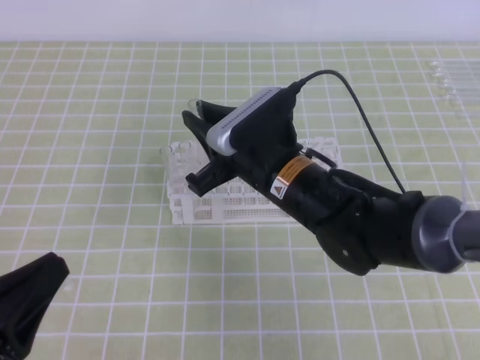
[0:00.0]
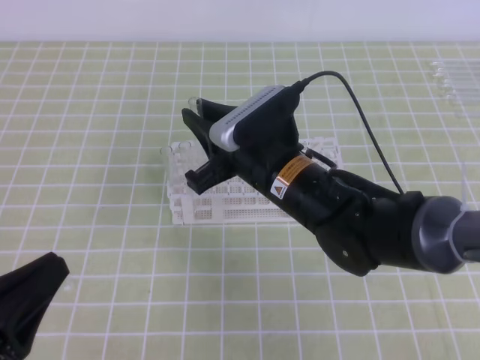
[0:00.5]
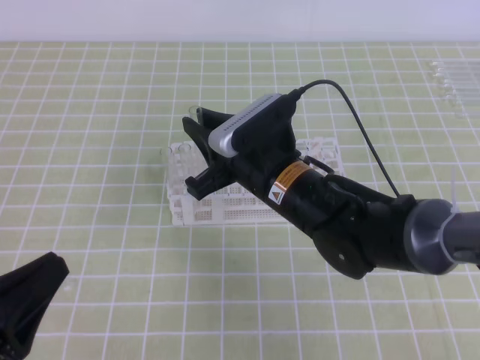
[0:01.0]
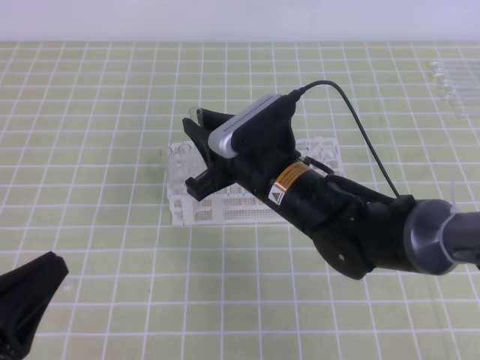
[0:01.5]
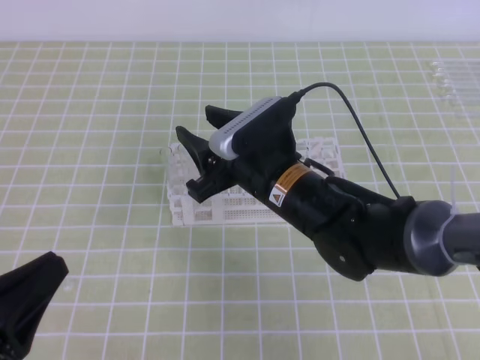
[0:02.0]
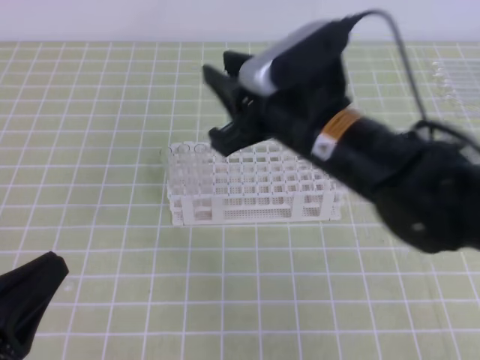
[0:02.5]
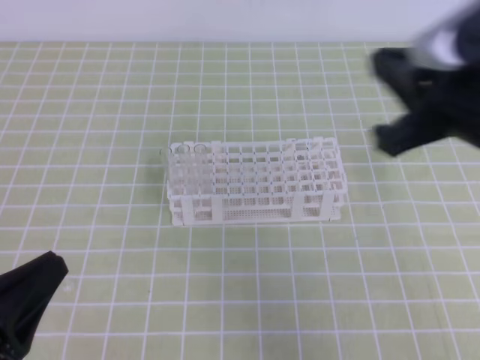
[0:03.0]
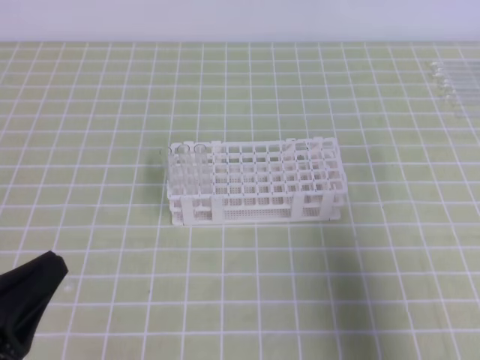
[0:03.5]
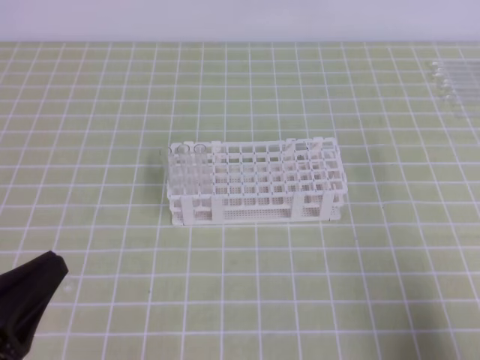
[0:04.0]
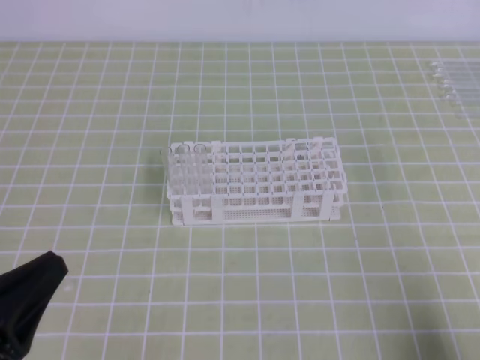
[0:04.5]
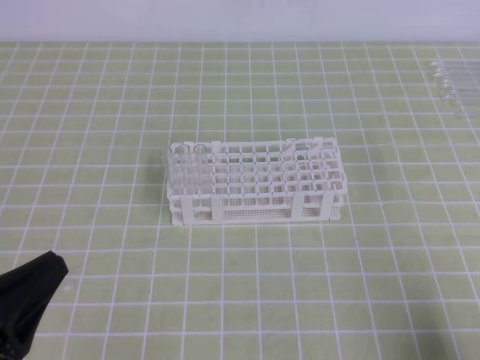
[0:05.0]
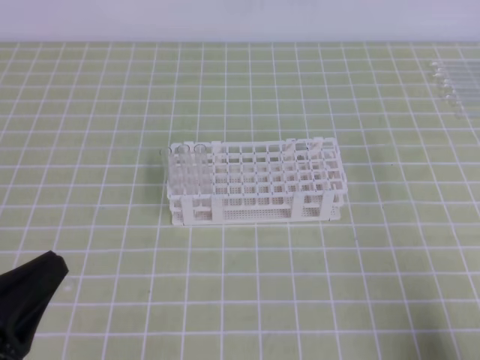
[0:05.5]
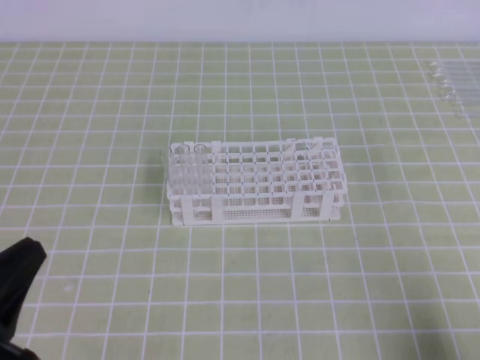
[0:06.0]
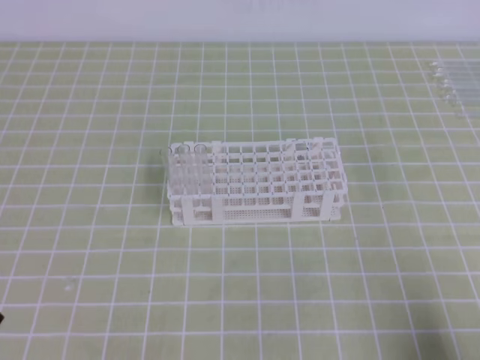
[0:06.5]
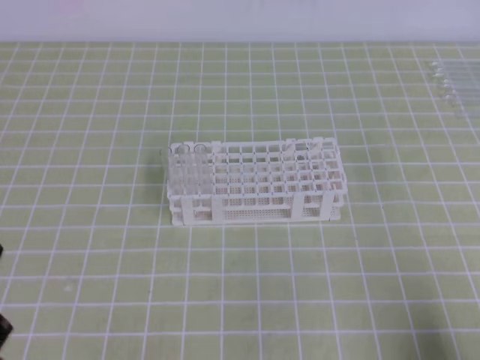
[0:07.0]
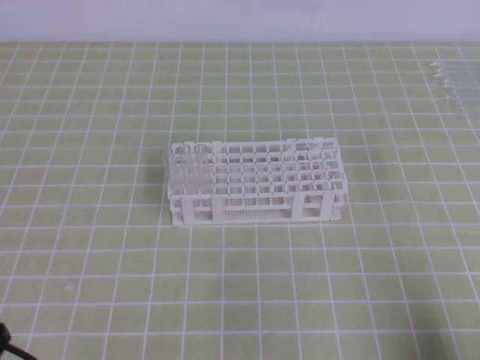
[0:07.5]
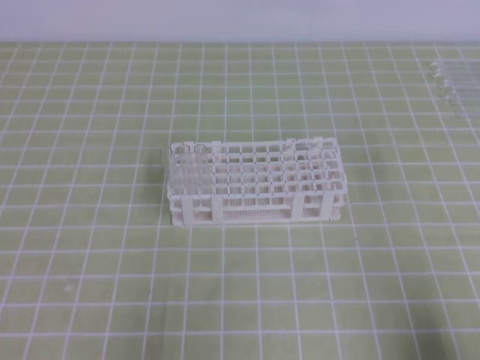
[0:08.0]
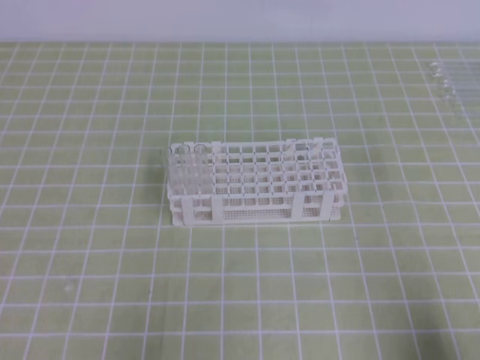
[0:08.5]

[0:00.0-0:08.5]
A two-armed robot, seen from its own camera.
0:00.0 to 0:02.0: The right gripper opens.
0:02.0 to 0:04.0: The right gripper goes some 35 cm to the right and backward, and closes its fingers.
0:06.5 to 0:08.5: The left gripper travels downward by some 10 cm.
